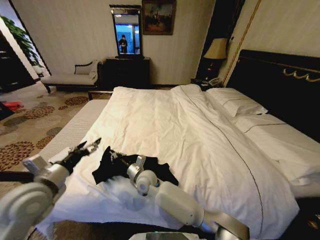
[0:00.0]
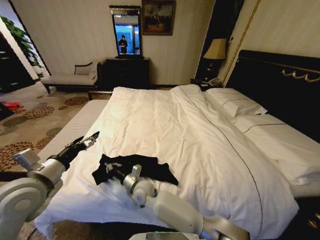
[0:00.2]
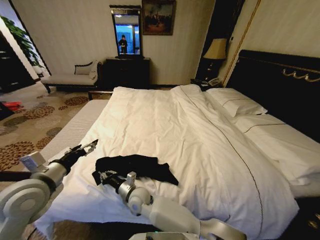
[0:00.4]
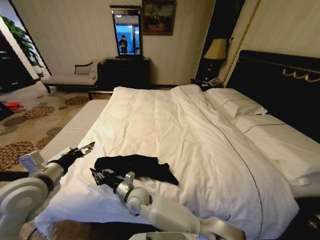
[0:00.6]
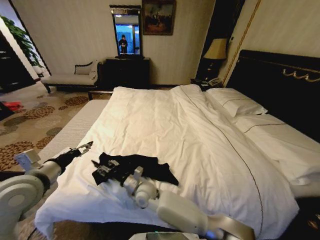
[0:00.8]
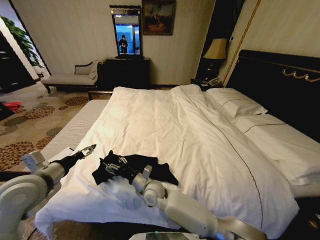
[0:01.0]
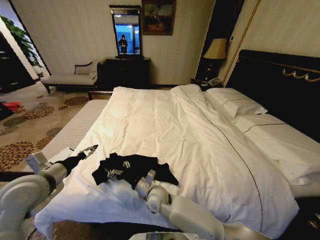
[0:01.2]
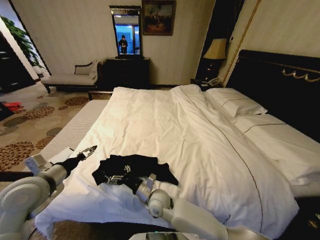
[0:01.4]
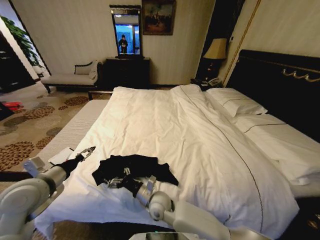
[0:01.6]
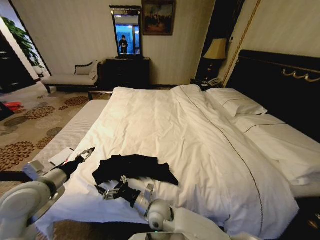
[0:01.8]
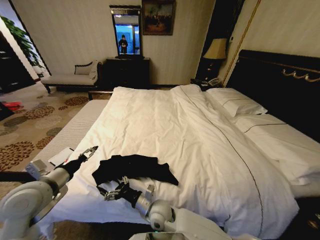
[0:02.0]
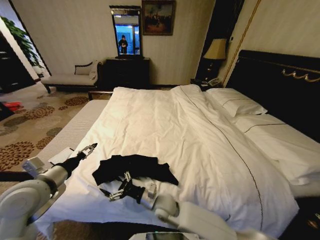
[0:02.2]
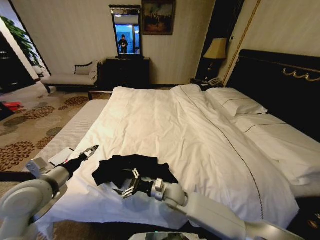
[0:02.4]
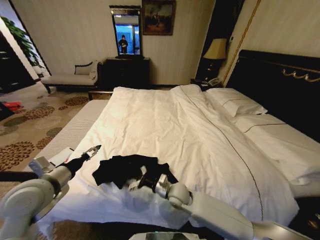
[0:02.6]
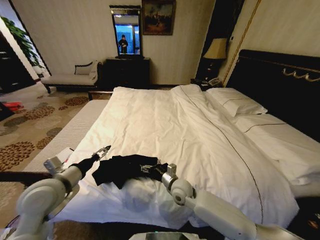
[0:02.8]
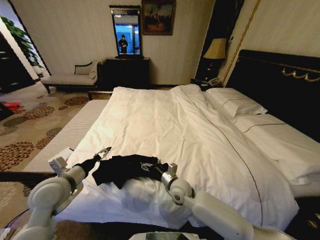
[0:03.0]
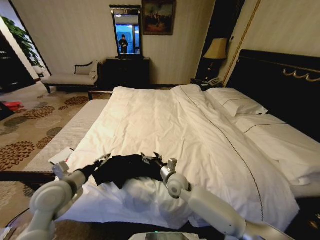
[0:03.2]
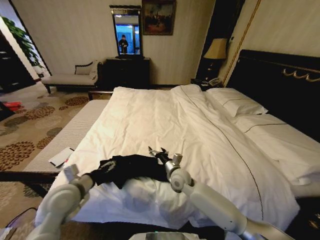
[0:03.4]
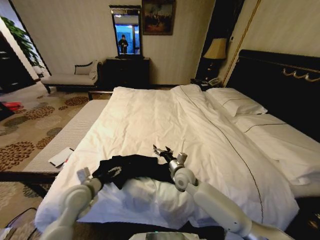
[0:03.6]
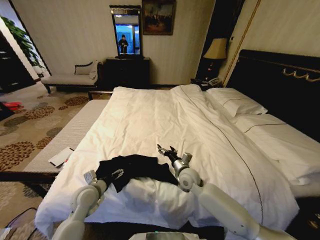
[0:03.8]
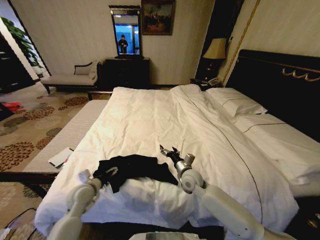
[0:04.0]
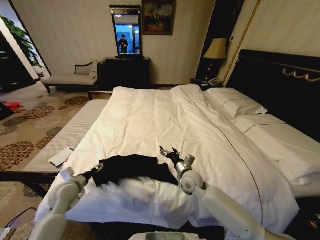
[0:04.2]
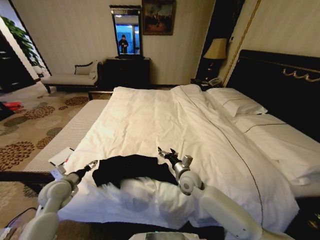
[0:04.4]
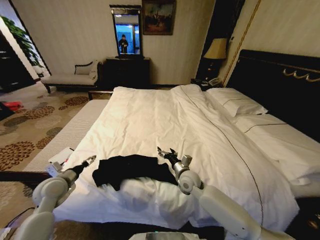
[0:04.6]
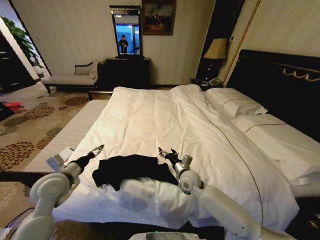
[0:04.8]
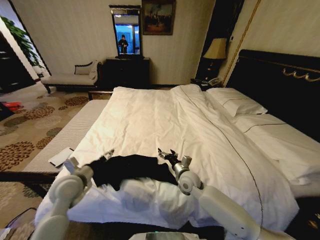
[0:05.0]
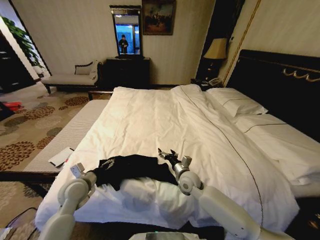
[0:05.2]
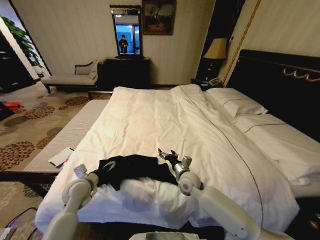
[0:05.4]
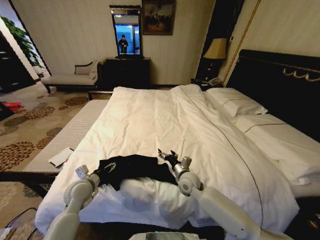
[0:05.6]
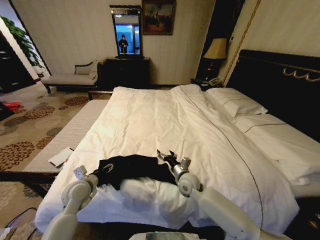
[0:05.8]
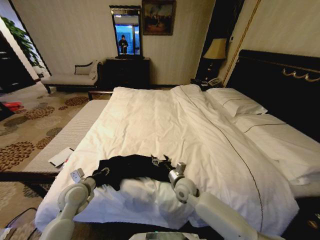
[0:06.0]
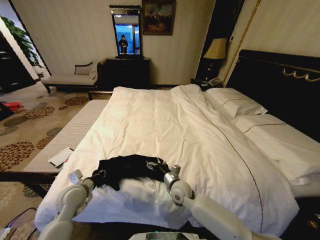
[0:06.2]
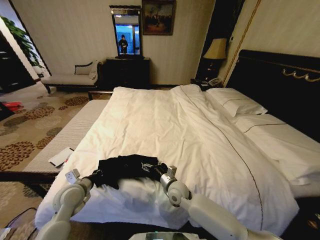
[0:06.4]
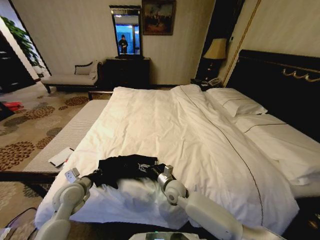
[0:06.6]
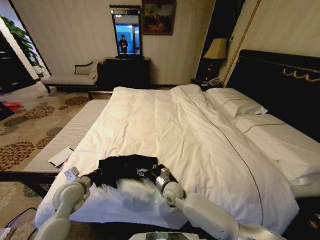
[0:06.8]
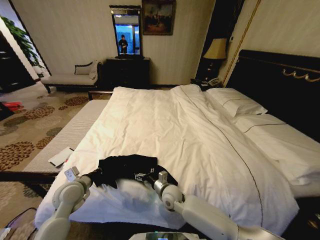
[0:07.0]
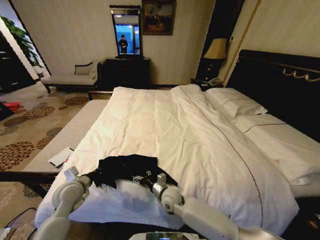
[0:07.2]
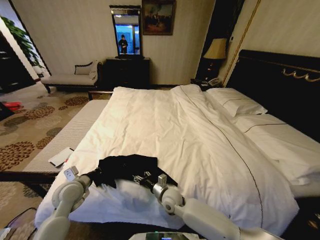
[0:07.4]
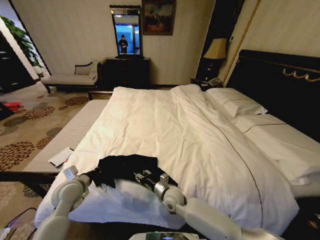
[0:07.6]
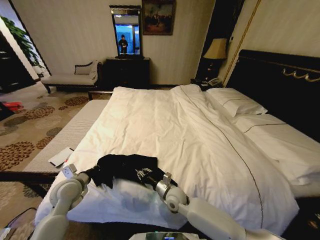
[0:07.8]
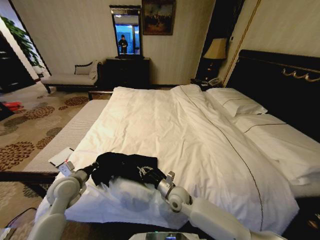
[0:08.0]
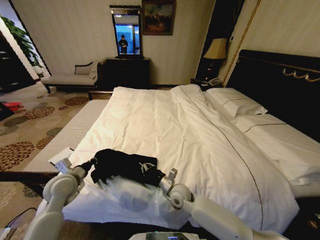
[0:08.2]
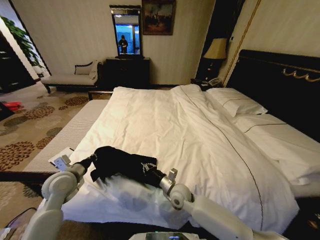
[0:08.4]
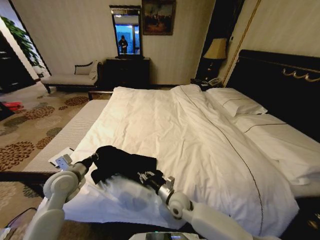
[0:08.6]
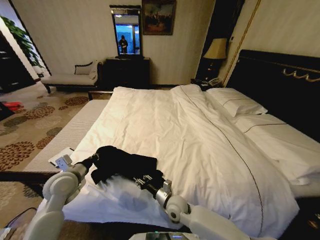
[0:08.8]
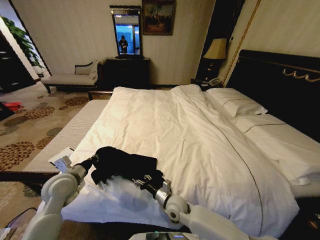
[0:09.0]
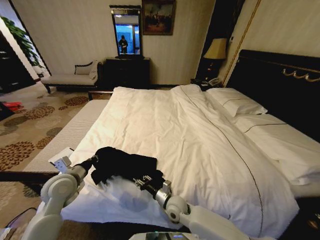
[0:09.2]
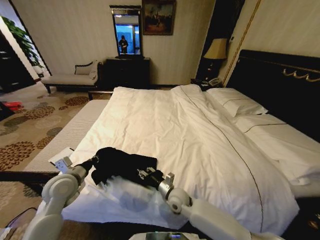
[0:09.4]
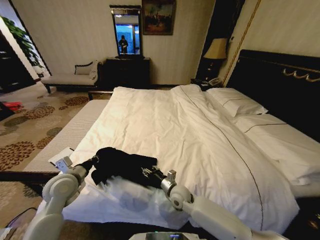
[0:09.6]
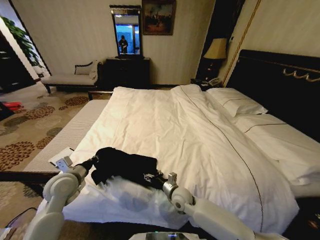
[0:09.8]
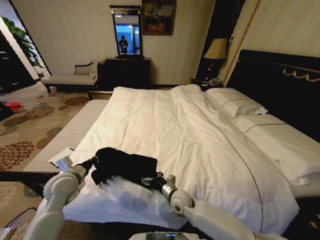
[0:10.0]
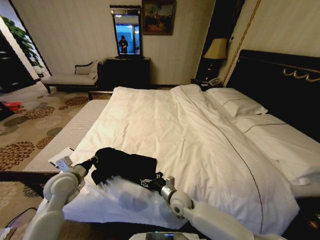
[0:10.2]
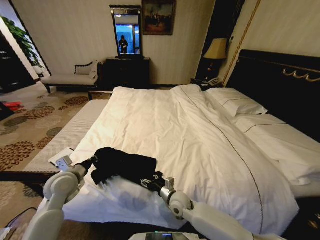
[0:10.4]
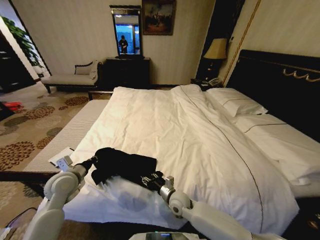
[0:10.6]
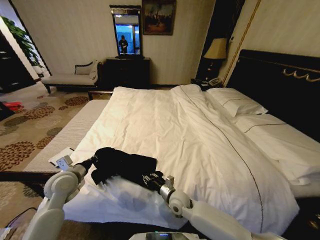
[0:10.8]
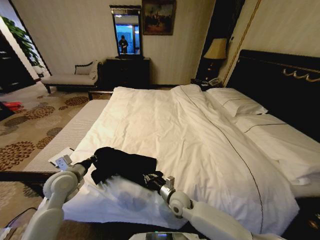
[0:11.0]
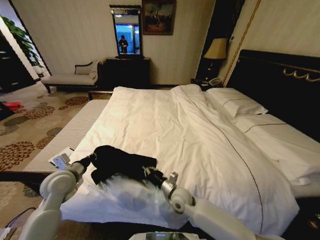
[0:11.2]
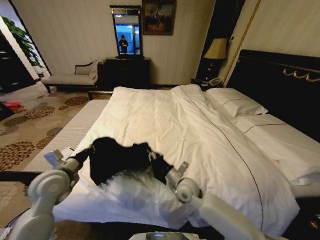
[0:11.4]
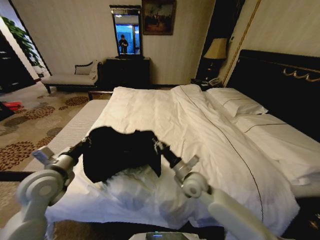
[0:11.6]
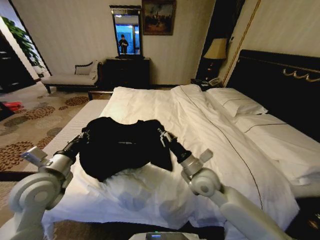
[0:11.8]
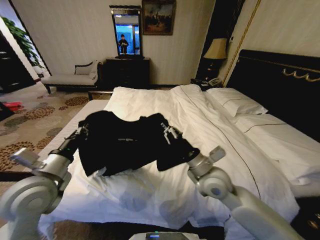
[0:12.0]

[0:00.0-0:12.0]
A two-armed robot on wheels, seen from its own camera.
Task of the whole recording: Fold the clothes on the bed.
0:00.0 to 0:01.6: The right gripper heads backward and to the right, covering about 10 cm, and opens its fingers.
0:01.6 to 0:03.0: The right gripper is displaced to the right and forward by approximately 10 cm, while the left gripper shifts by about 5 cm.
0:03.0 to 0:04.4: The left gripper is displaced downward and to the left by some 10 cm; the right gripper ends up some 5 cm from where it was.
0:04.4 to 0:06.0: The left gripper goes approximately 5 cm to the right, reaches approximately 10 cm upward, then returns, and closes up.
0:06.0 to 0:07.6: The right gripper shifts roughly 5 cm to the left, and closes up; the left gripper closes.
0:07.6 to 0:09.0: The right gripper closes, then opens again, while the left gripper is displaced upward by approximately 5 cm.
0:09.0 to 0:10.4: The grippers stay close to where they were, moving slightly.
0:10.4 to 0:12.0: The left gripper is displaced upward and backward by roughly 15 cm, while the right gripper travels upward by about 25 cm, and closes up.

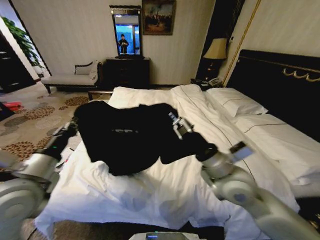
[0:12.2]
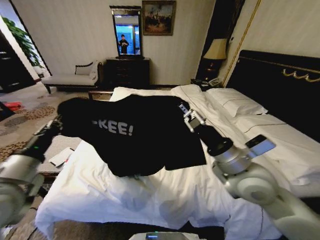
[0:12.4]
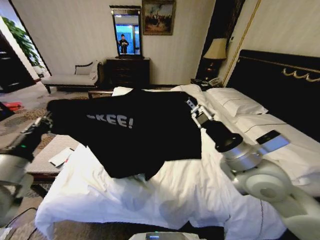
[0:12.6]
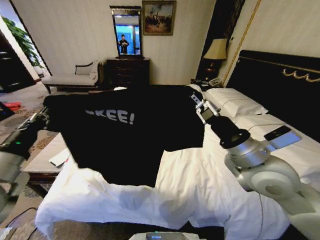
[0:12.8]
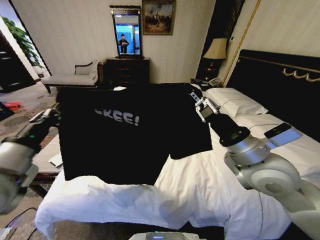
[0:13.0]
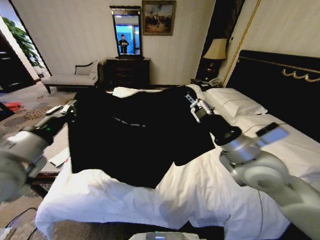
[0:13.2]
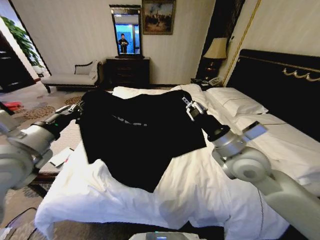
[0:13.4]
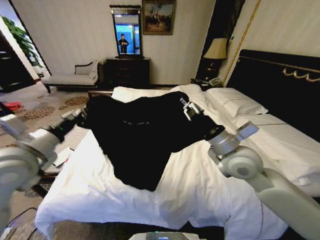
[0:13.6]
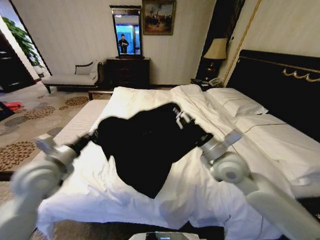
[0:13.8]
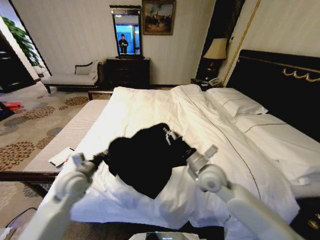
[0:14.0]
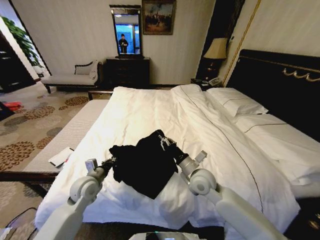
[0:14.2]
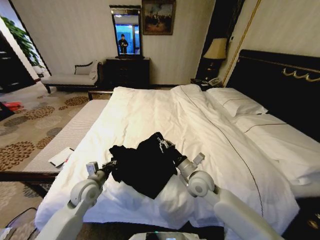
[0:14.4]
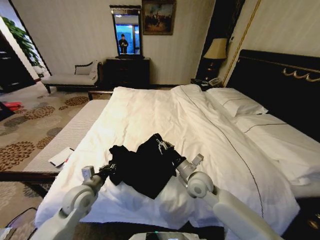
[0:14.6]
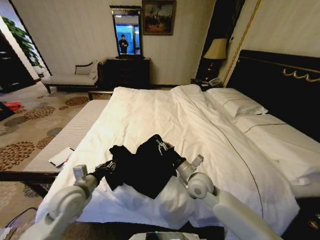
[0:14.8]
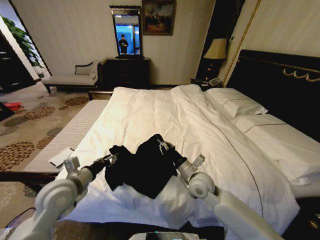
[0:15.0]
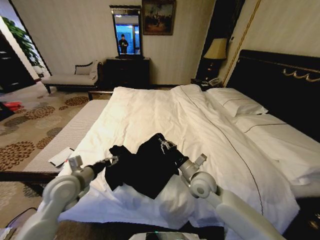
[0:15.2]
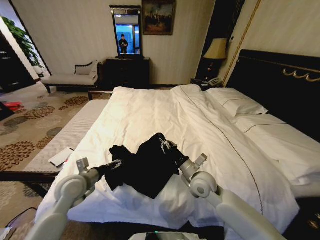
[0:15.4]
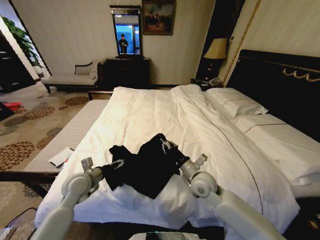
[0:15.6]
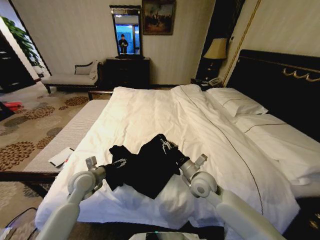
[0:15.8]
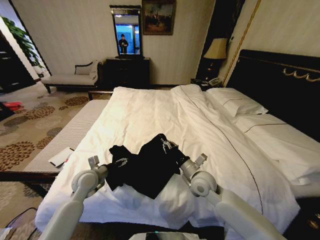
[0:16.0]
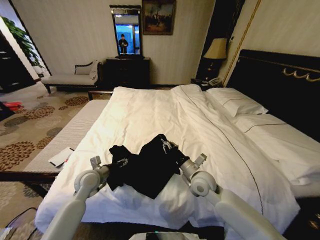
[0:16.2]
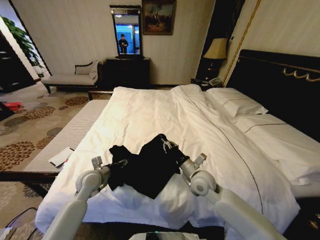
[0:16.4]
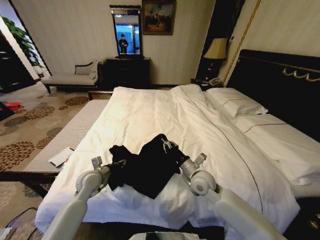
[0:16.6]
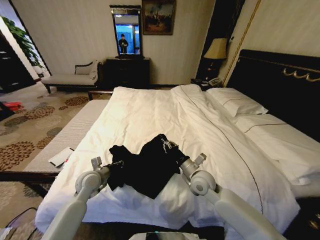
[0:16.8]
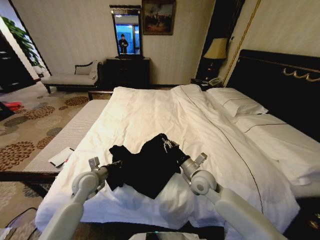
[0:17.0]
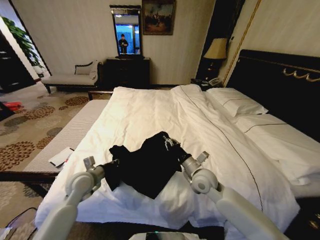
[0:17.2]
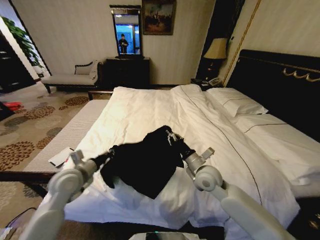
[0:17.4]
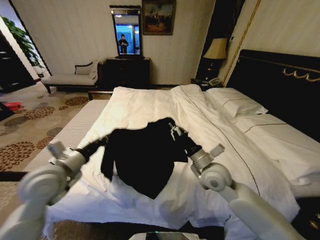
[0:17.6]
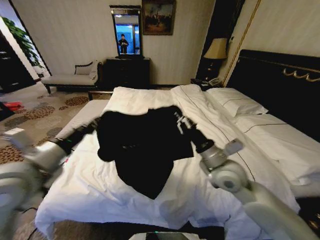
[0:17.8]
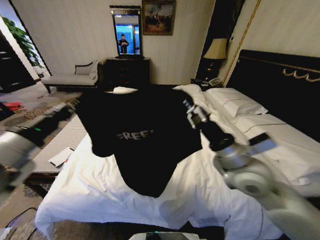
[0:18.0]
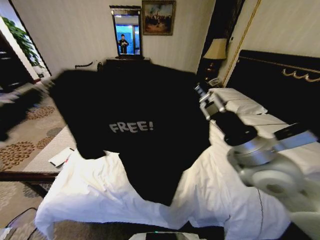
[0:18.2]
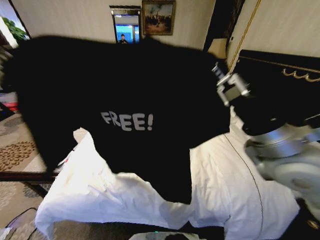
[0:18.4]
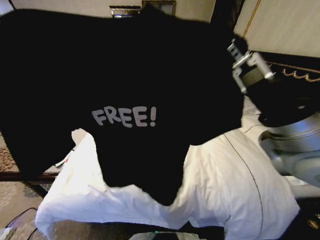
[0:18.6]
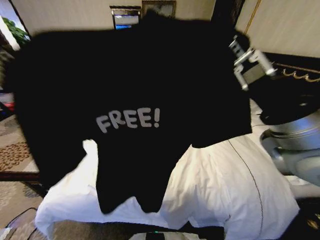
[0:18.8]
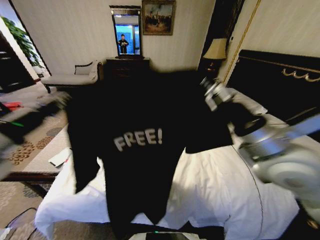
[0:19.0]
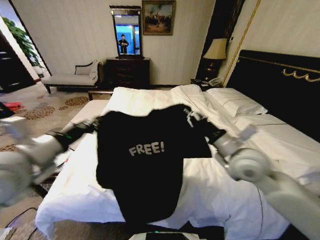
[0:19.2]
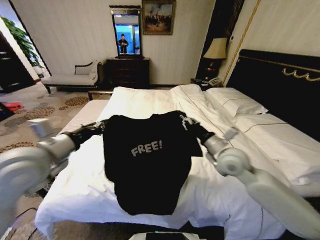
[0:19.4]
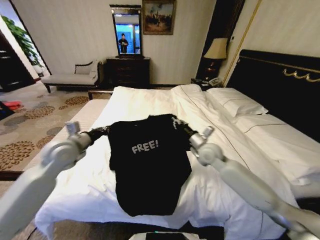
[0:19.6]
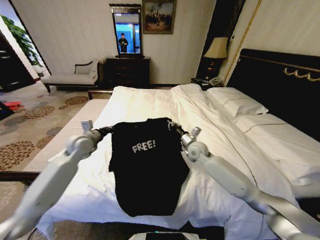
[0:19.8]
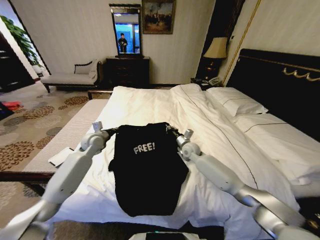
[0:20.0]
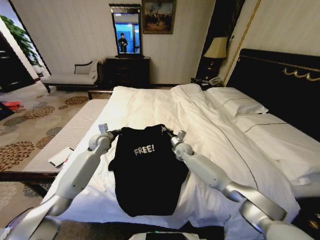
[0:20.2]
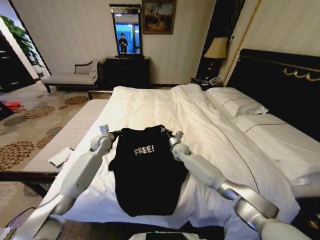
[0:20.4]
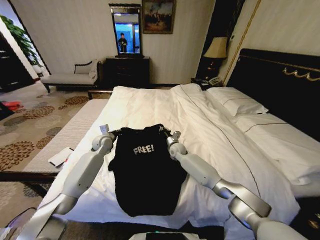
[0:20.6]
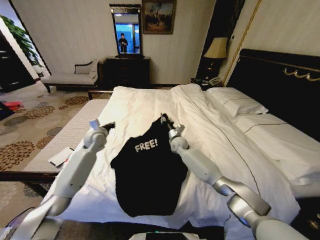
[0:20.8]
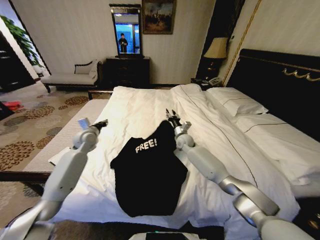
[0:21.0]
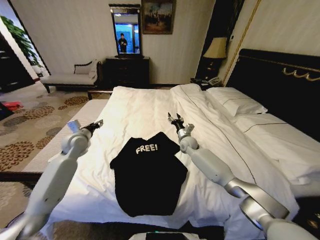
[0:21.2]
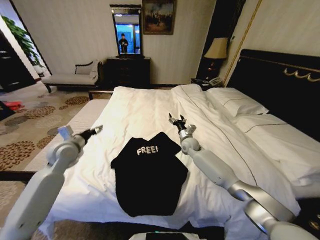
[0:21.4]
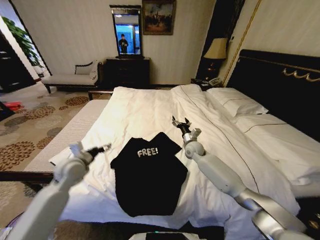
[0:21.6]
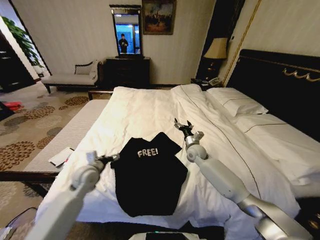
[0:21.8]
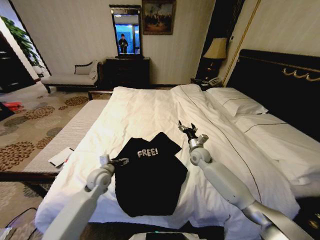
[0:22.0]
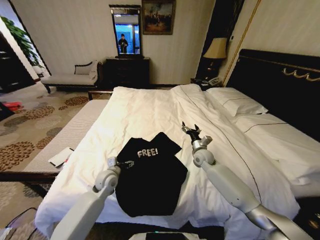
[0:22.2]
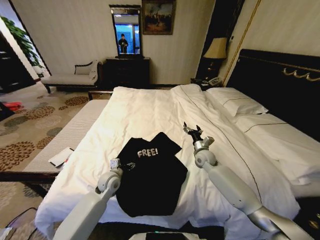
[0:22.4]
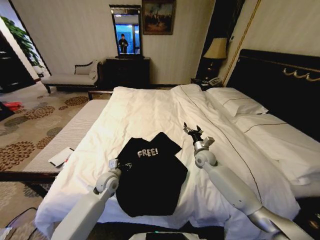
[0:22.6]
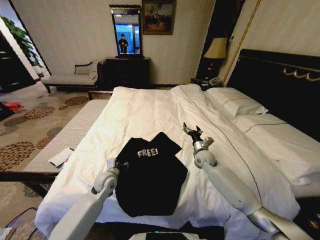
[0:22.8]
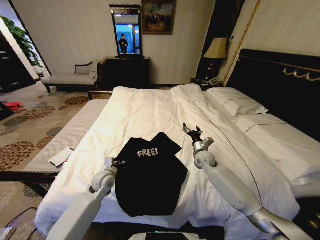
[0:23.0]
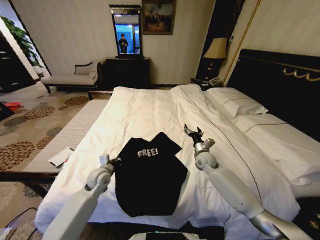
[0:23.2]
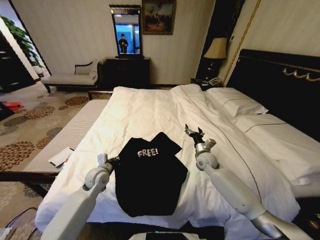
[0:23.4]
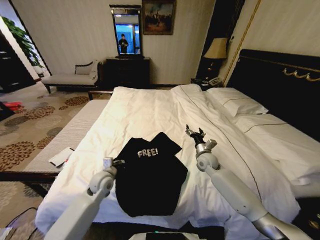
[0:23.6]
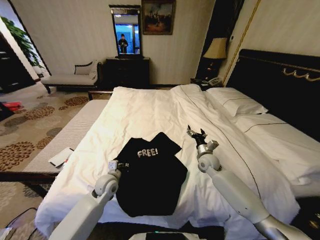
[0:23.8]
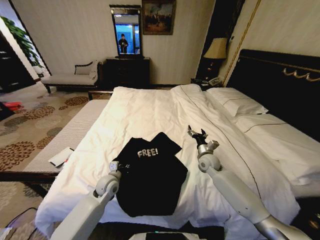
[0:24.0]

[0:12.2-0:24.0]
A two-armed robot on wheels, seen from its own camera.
Task of the whole recording: Fold the clothes on the bed.
0:12.2 to 0:13.6: The two grippers go some 5 cm forward.
0:13.6 to 0:15.2: The two grippers go some 15 cm downward. The left gripper opens its fingers.
0:15.2 to 0:16.6: The left gripper is displaced downward and forward by approximately 10 cm, and closes up.
0:16.6 to 0:18.2: The right gripper moves upward, approximately 20 cm; the left gripper shifts approximately 35 cm upward and backward.
0:18.2 to 0:19.6: The two grippers go roughly 20 cm forward and downward.
0:19.6 to 0:21.0: The left gripper goes some 15 cm forward and downward, and opens. Meanwhile the right gripper moves forward, downward and to the left, roughly 15 cm, and opens its fingers.
0:21.0 to 0:22.6: The left gripper heads backward, downward and to the right, covering approximately 25 cm, and opens and closes again, while the right gripper heads backward and to the right, covering approximately 15 cm, and opens its fingers.
0:22.6 to 0:24.0: There are only small adjustments of the grippers.
